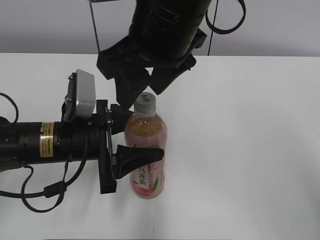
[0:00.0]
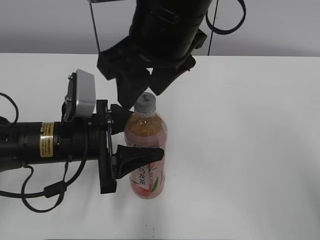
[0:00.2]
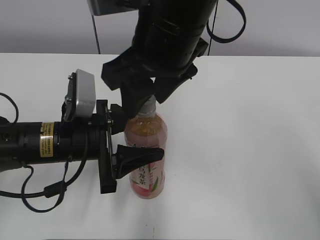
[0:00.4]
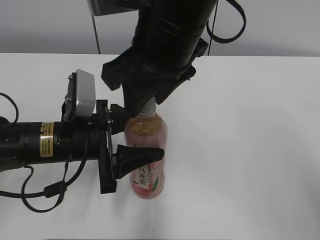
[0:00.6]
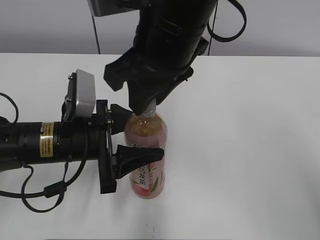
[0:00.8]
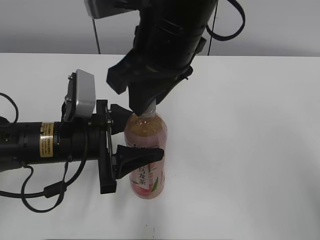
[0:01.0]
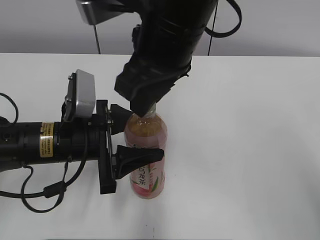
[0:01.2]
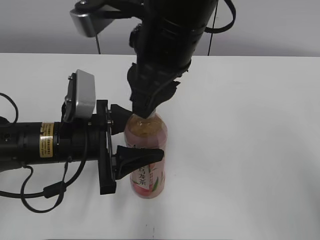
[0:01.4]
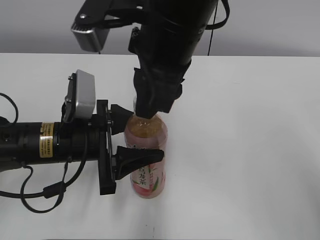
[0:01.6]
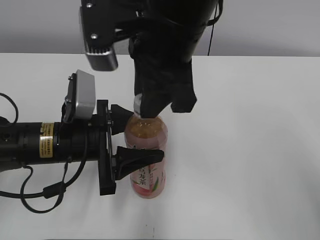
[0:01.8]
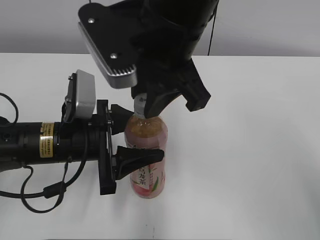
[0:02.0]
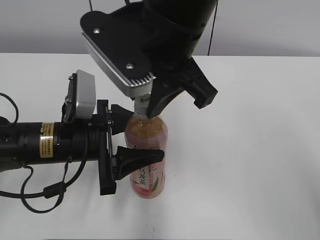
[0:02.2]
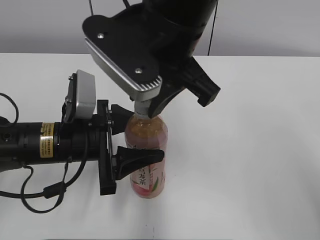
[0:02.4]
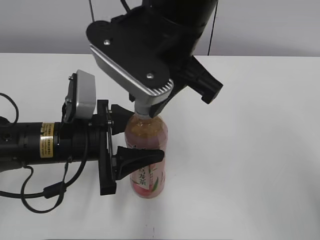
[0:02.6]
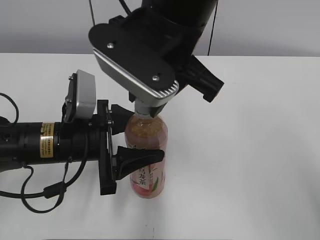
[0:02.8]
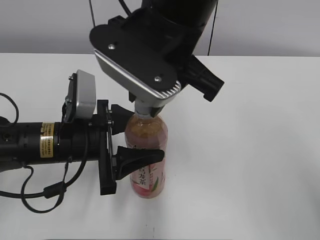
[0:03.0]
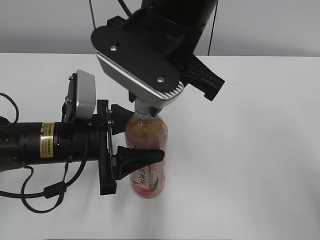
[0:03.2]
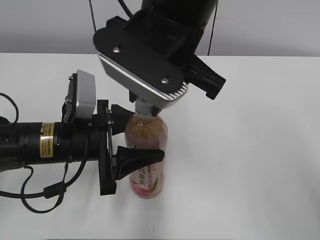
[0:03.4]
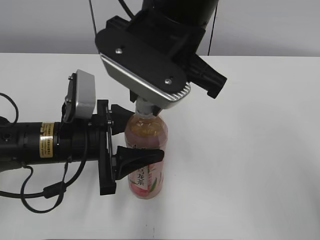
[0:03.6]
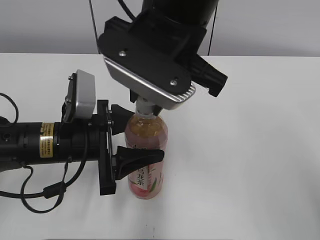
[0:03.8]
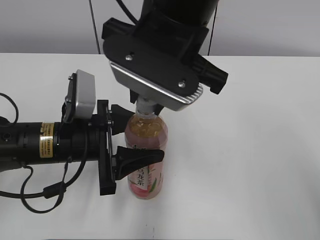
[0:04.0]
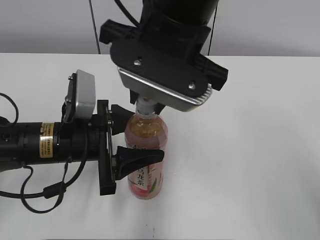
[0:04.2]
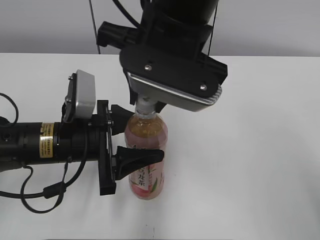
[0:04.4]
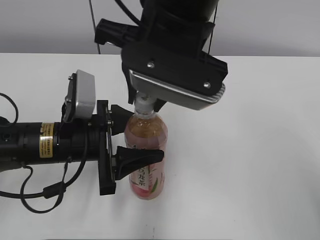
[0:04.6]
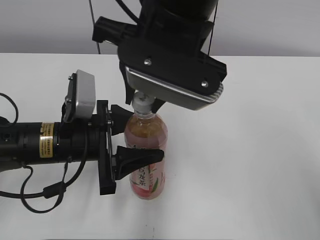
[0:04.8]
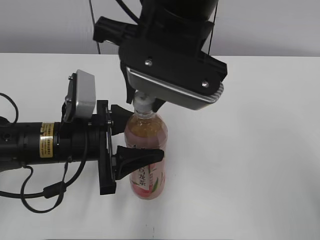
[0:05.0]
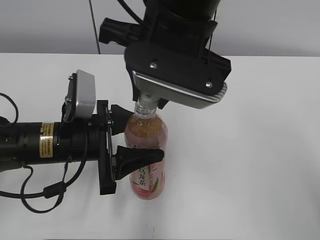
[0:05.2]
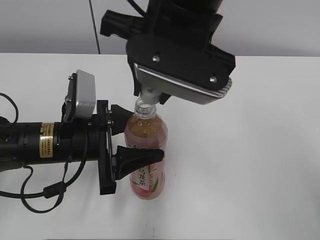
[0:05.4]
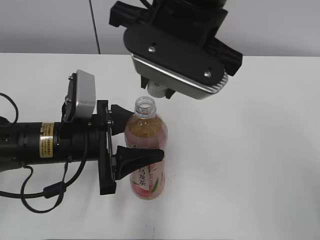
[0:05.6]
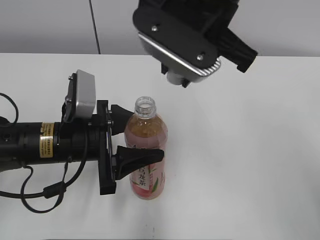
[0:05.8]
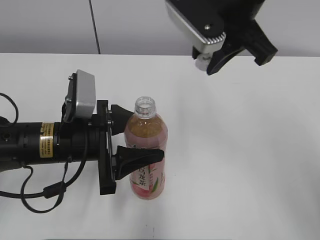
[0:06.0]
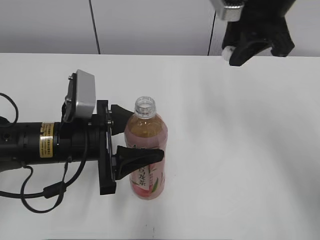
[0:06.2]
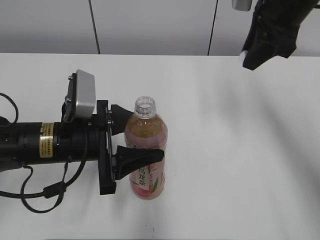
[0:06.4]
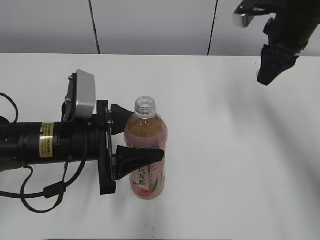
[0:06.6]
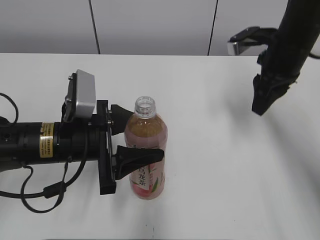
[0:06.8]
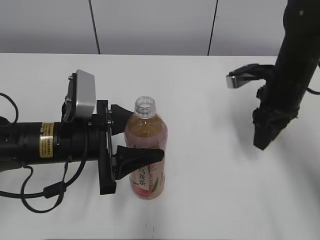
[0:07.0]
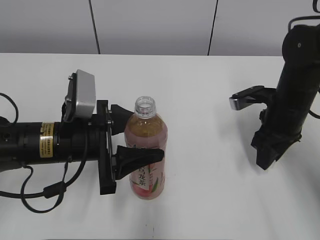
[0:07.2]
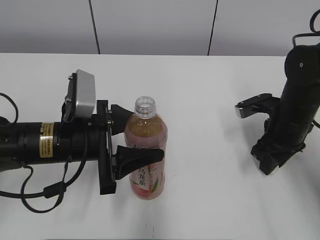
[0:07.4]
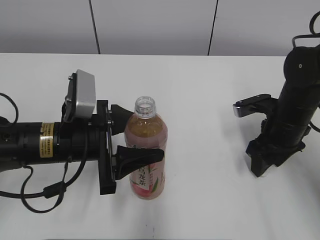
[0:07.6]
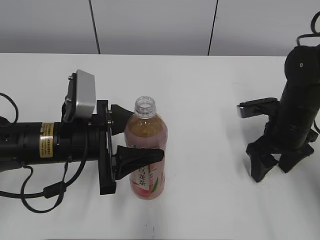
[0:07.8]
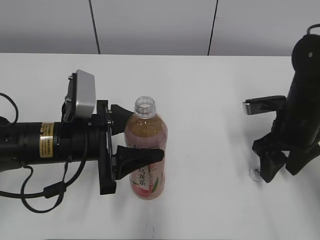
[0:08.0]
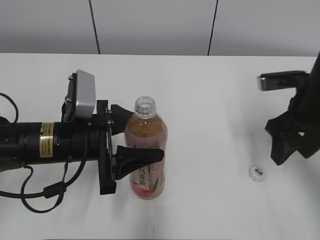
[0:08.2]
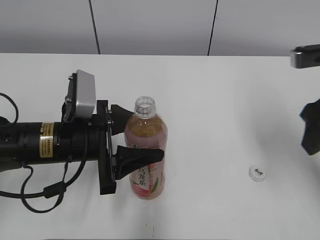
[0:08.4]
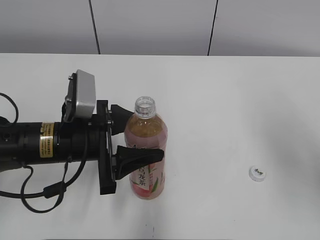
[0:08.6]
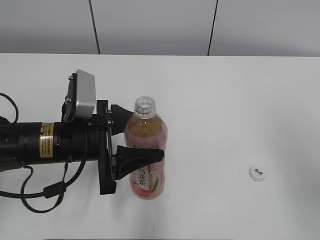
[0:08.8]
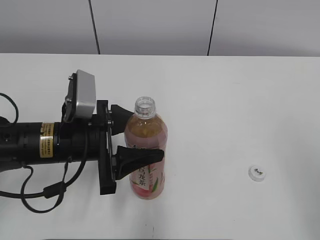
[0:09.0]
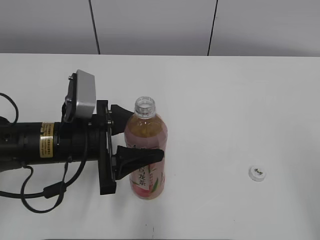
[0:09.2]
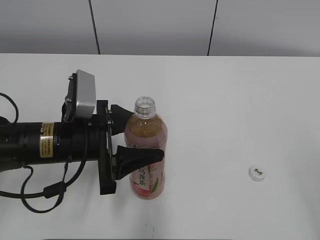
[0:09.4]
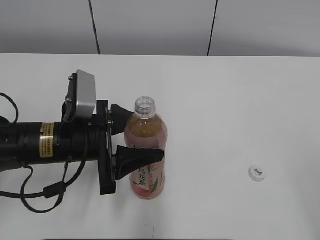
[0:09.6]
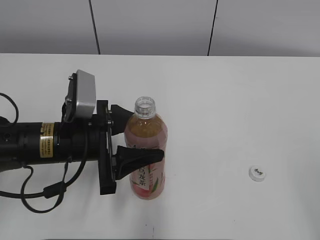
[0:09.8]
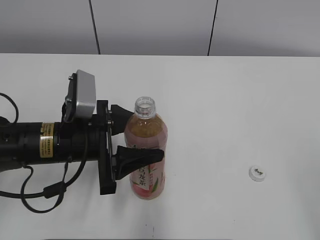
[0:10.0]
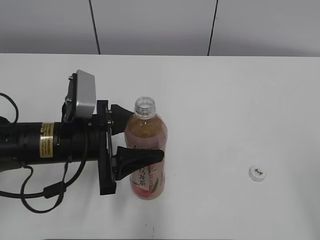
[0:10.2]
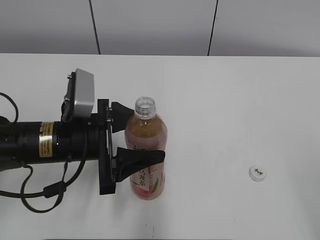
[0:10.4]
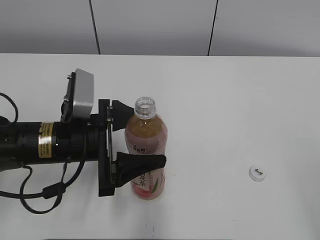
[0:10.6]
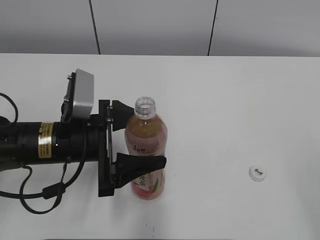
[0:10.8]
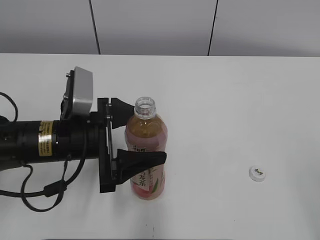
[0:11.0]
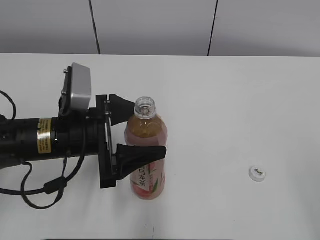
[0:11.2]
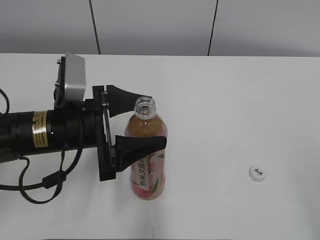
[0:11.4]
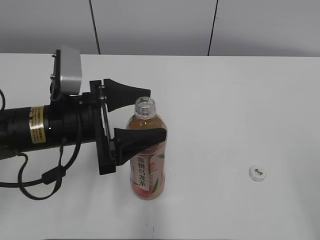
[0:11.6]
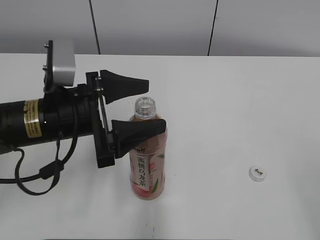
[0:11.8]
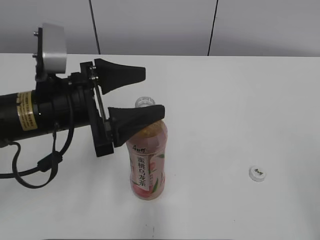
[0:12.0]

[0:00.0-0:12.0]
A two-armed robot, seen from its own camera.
Step, 5.0 to 7.6 s: Place the bottle cap on the right.
0.0 to 1.6 s: The right gripper closes up.
4.4 to 6.0 s: The right gripper goes roughly 10 cm to the right and forward.
6.0 to 7.6 s: The right gripper heads downward and to the right, covering some 25 cm, and opens.
7.6 to 9.0 s: The right gripper shifts about 30 cm backward and upward.
10.4 to 12.0 s: The left gripper travels upward by some 5 cm.

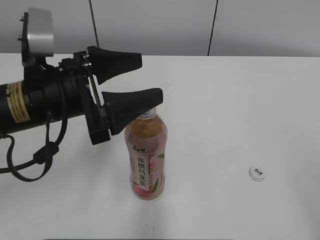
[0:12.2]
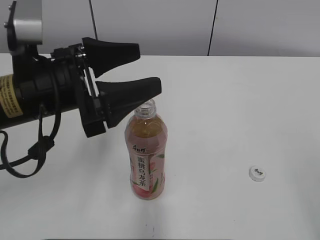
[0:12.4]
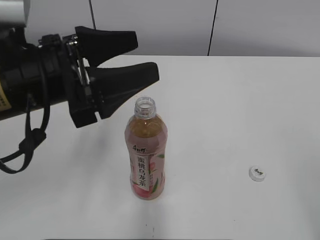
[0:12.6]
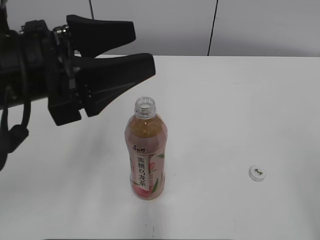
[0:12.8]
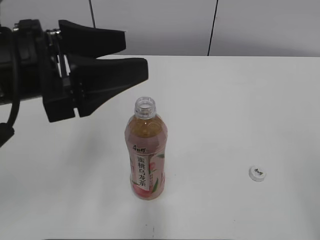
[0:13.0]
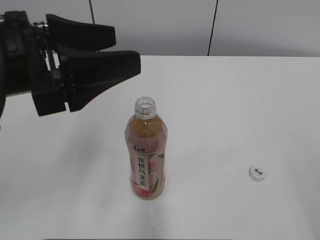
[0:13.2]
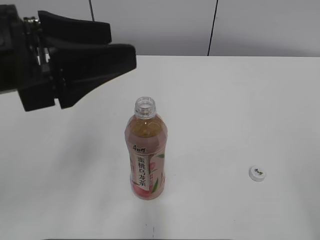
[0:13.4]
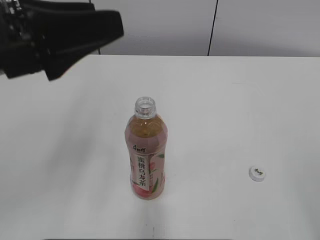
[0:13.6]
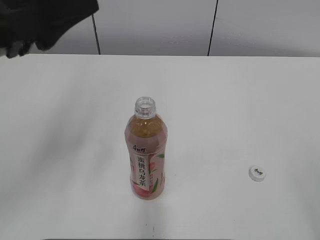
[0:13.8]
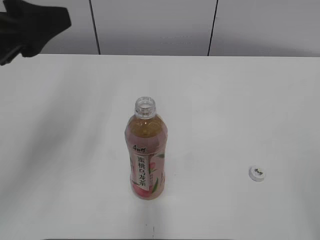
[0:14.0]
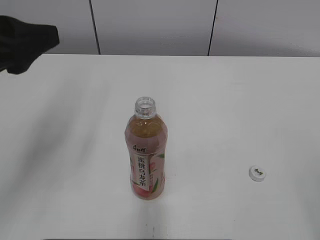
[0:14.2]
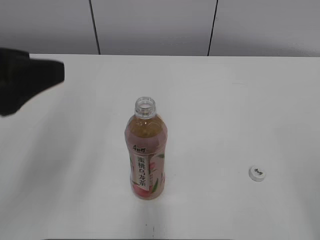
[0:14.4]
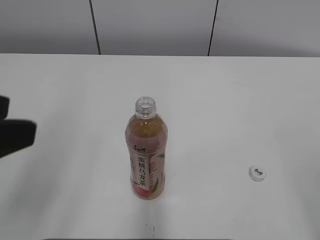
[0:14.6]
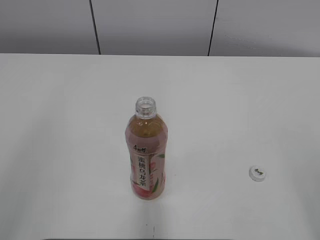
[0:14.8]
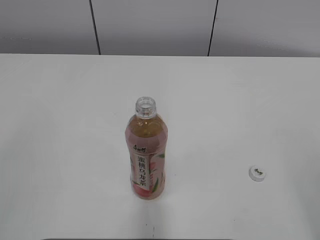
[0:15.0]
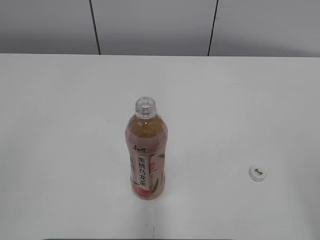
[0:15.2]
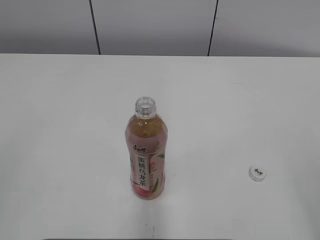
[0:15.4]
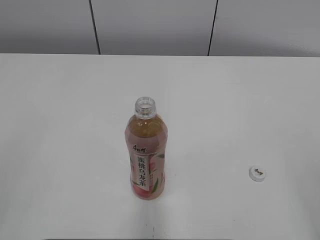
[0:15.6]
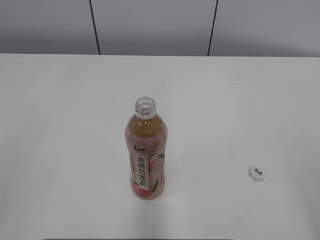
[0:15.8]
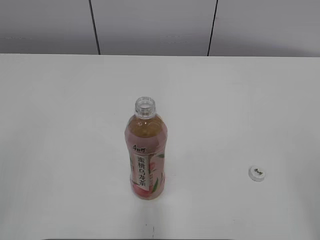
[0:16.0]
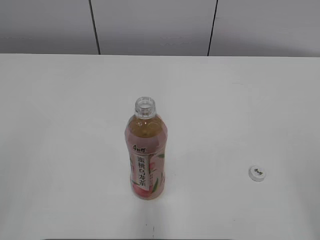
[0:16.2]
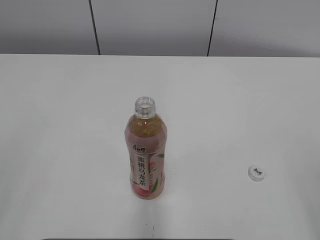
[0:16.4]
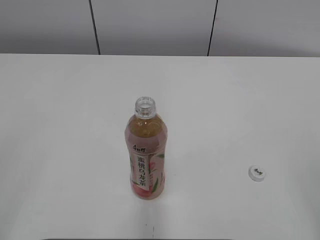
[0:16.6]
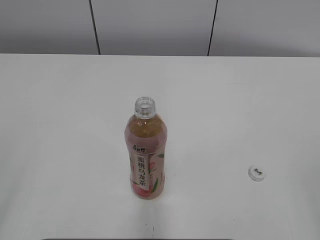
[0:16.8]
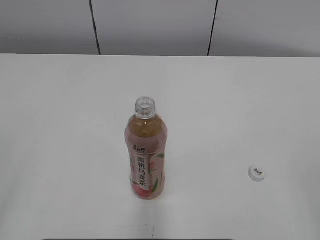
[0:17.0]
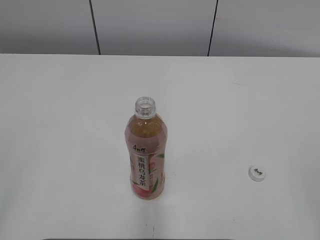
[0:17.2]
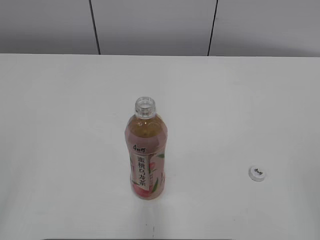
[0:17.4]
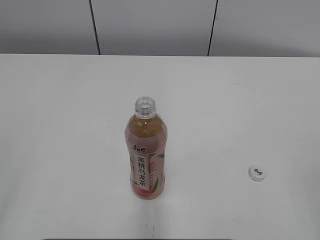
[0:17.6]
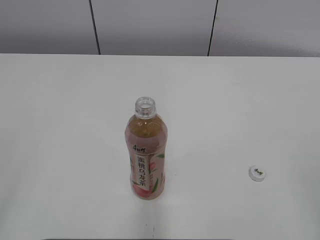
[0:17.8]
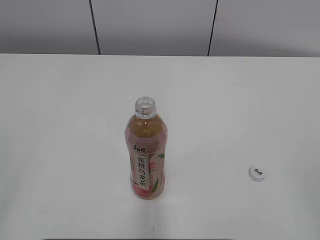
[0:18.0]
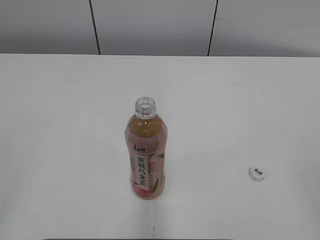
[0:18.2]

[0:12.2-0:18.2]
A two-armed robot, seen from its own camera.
12.2 to 13.8 s: The left gripper travels upward by about 10 cm.
13.8 to 15.2 s: The left gripper is displaced backward and to the left by roughly 25 cm.

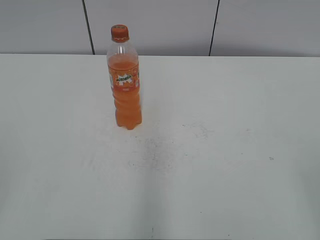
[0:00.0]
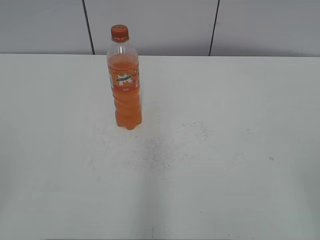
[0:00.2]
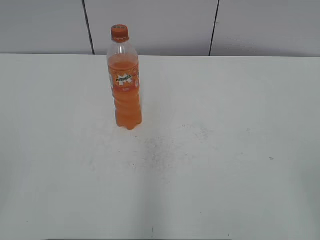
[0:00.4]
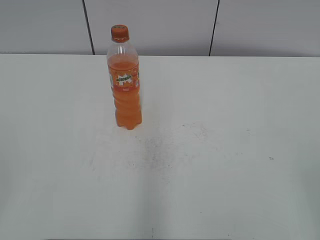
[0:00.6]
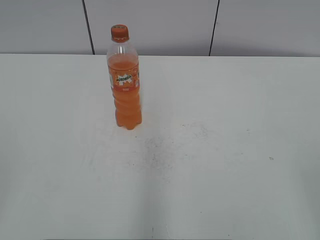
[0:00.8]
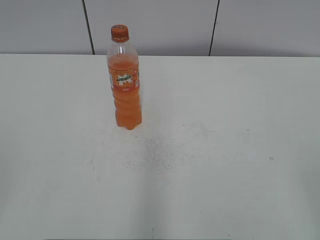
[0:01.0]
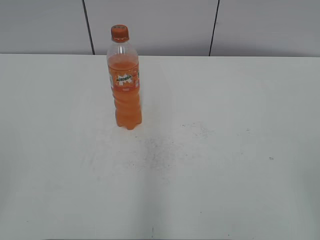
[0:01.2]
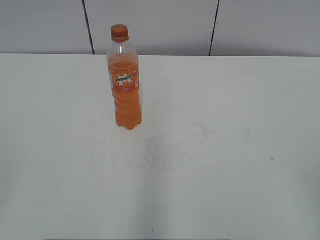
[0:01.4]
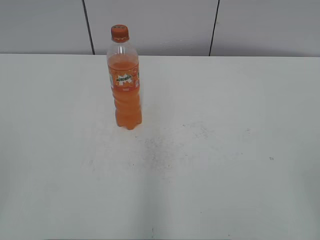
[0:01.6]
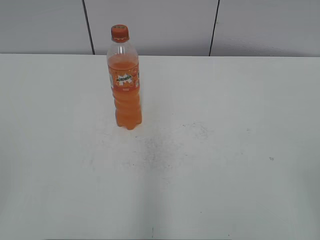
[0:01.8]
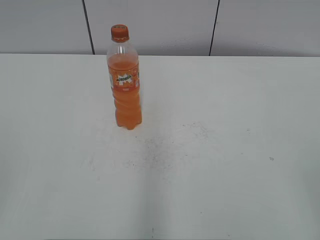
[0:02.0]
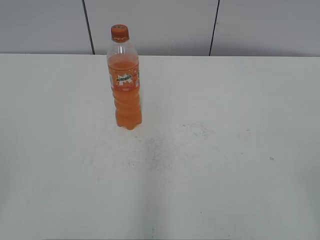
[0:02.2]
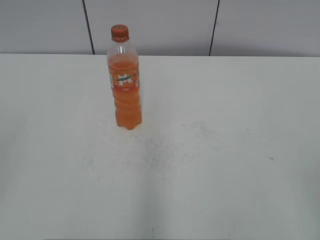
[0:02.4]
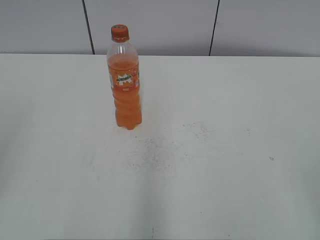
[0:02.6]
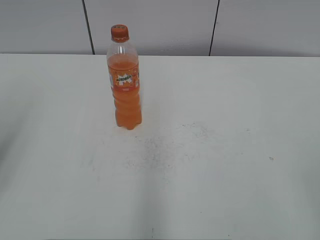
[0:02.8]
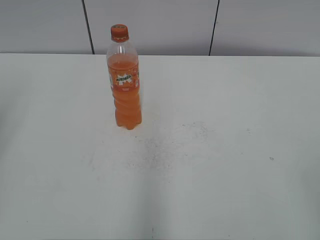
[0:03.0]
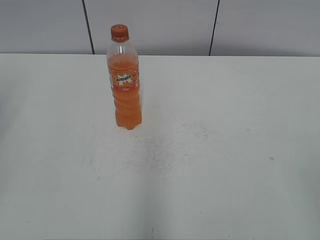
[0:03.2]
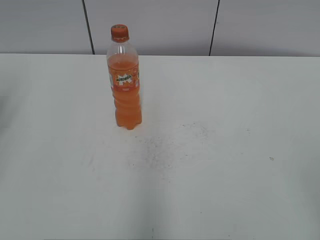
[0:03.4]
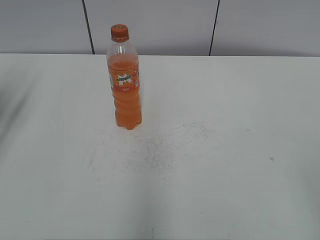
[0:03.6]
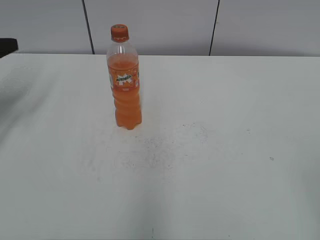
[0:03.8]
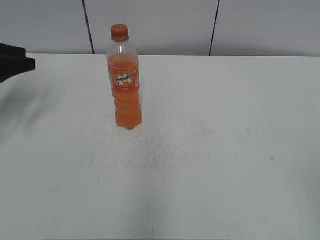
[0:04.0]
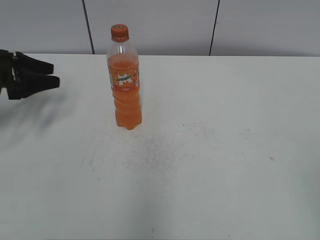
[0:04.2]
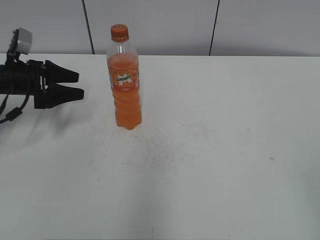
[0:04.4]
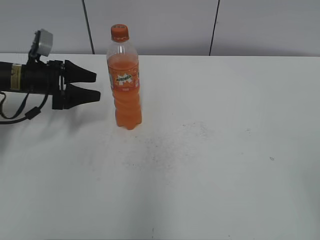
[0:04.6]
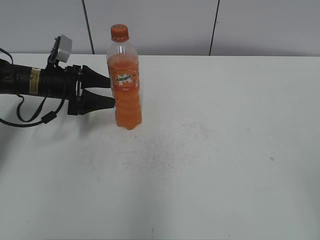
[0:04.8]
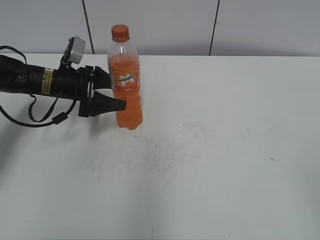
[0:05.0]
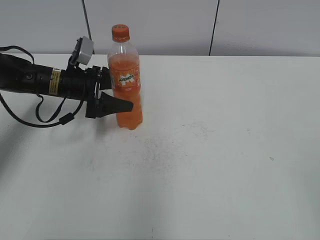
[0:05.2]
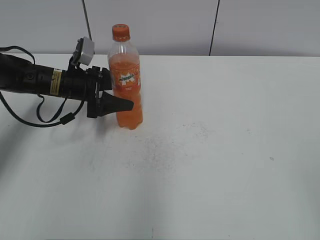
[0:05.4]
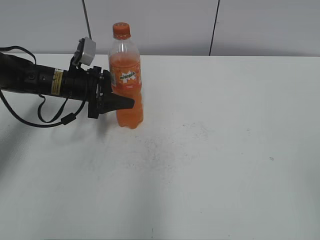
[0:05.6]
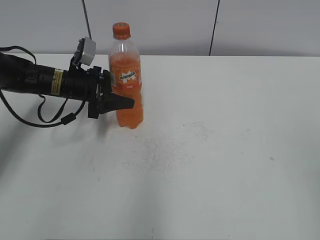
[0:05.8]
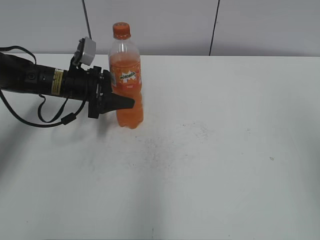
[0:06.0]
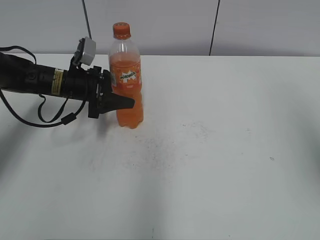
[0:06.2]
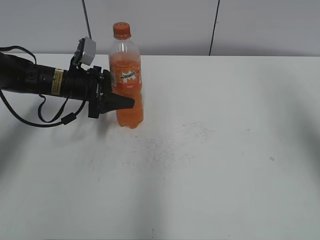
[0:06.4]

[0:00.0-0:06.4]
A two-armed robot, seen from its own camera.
Step, 0.0 to 5.6 s: Grab the Mirinda with the left hand.
3.2 to 4.8 s: The left gripper moves forward, downward and to the right, some 30 cm, and opens.
4.8 to 6.4 s: The left gripper closes up; the right gripper travels forward and upward by some 25 cm, and closes its fingers.
